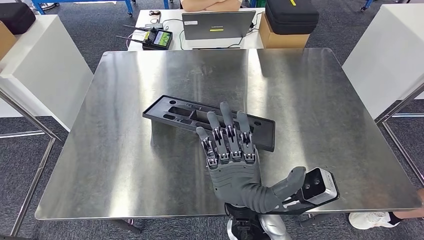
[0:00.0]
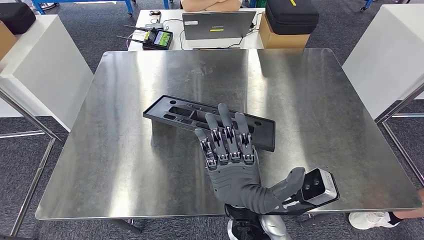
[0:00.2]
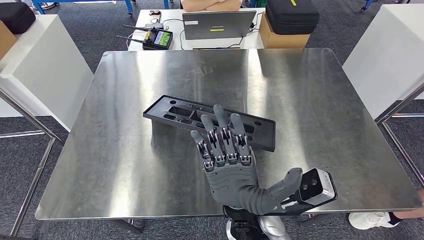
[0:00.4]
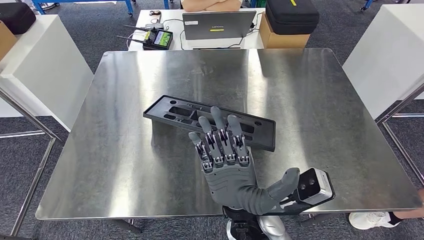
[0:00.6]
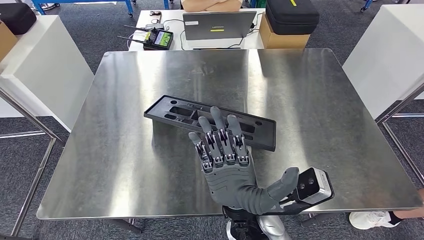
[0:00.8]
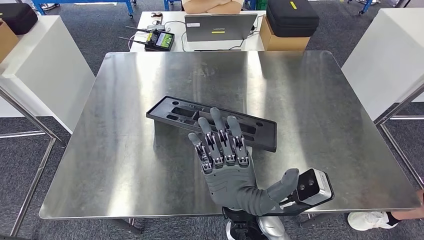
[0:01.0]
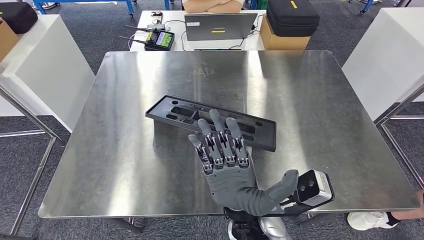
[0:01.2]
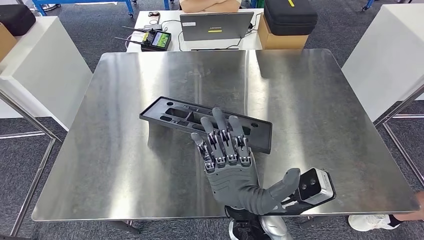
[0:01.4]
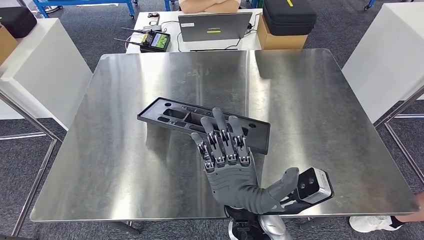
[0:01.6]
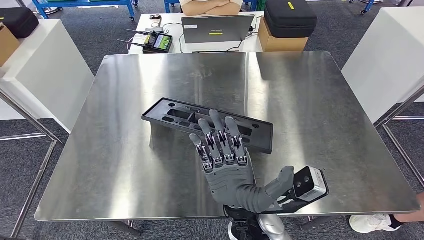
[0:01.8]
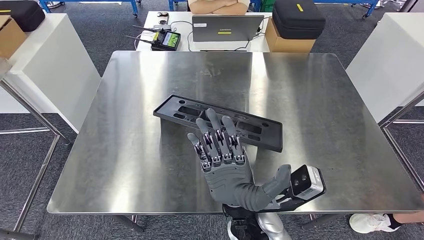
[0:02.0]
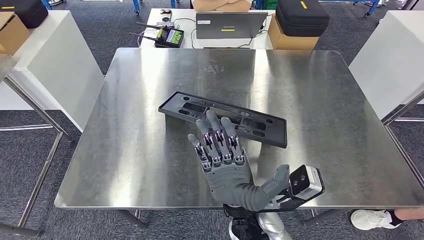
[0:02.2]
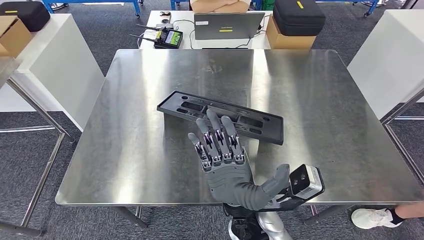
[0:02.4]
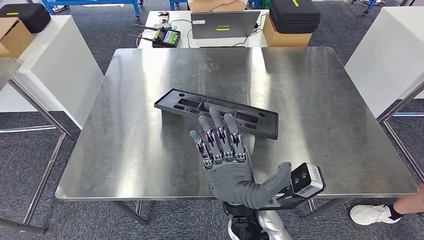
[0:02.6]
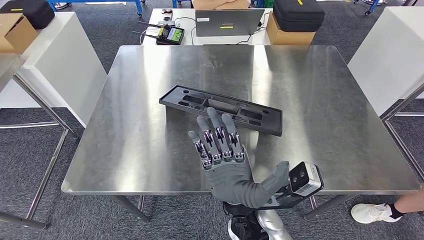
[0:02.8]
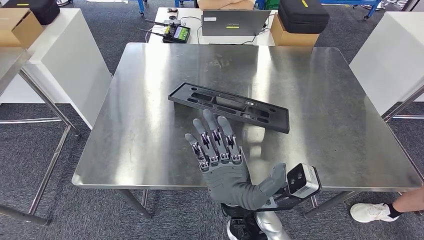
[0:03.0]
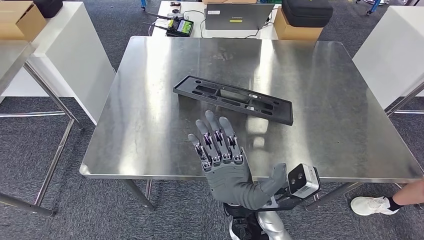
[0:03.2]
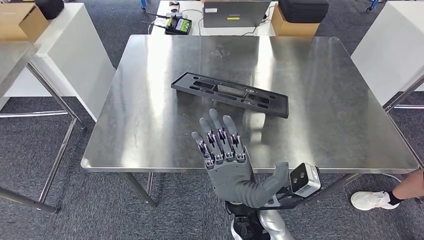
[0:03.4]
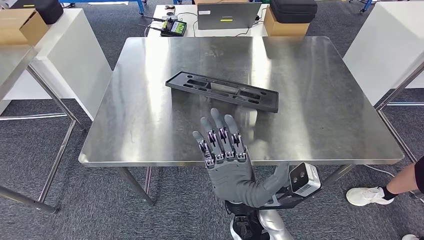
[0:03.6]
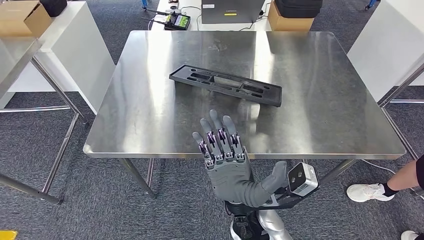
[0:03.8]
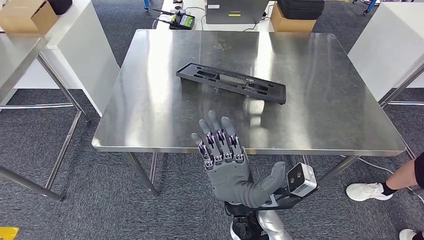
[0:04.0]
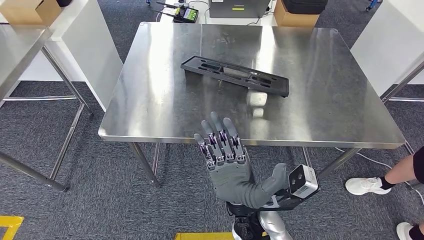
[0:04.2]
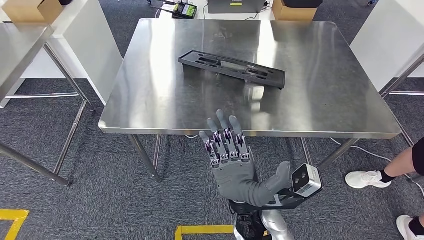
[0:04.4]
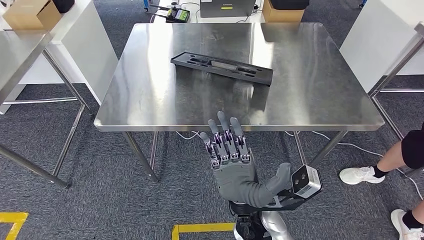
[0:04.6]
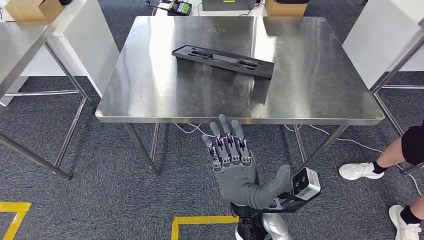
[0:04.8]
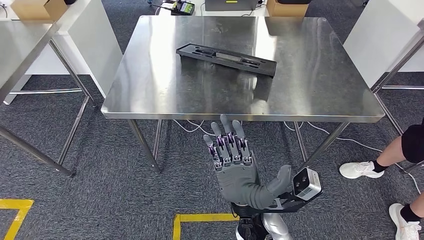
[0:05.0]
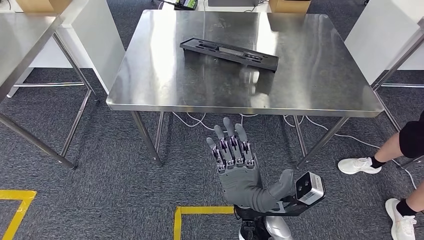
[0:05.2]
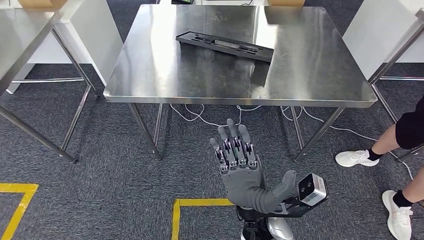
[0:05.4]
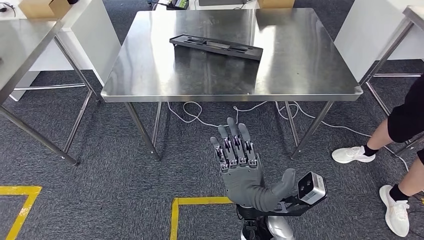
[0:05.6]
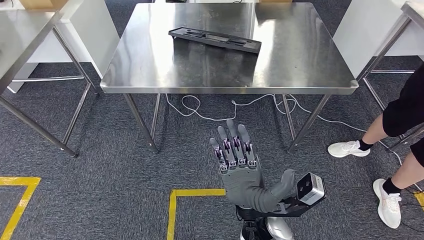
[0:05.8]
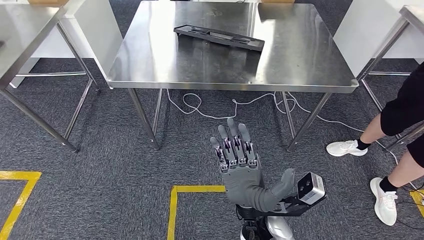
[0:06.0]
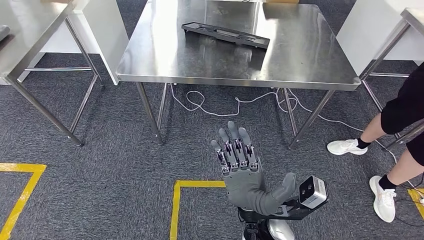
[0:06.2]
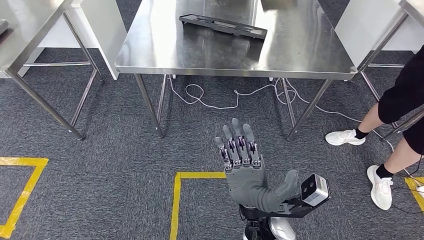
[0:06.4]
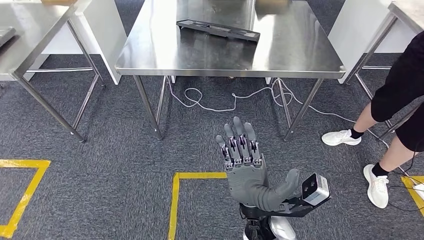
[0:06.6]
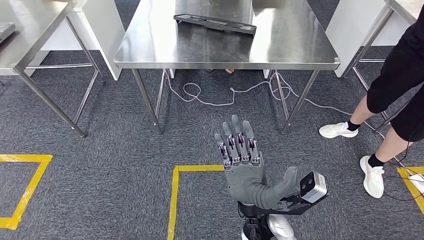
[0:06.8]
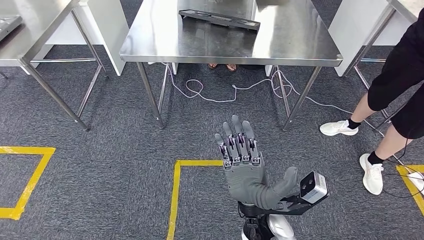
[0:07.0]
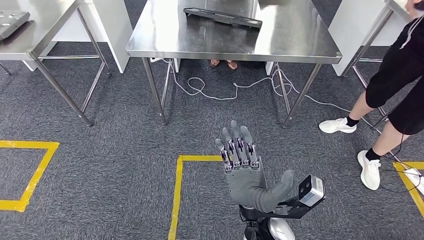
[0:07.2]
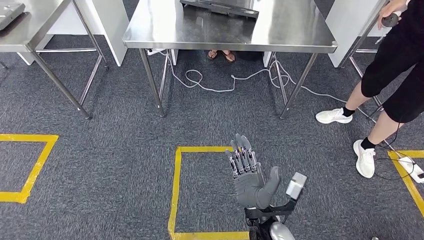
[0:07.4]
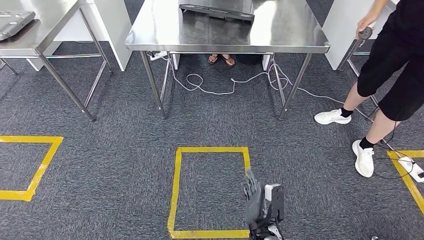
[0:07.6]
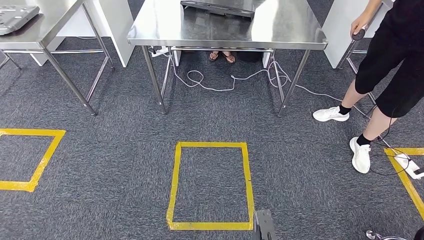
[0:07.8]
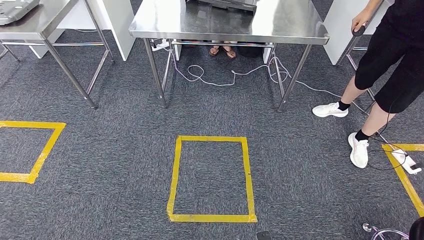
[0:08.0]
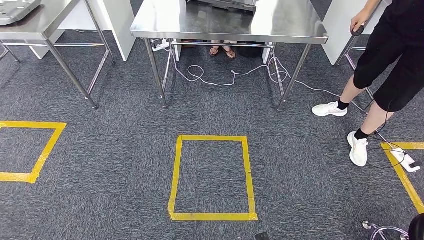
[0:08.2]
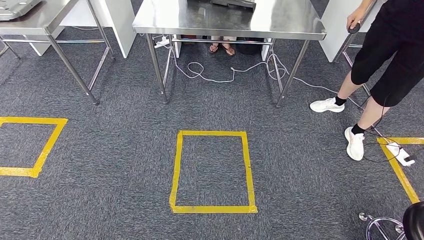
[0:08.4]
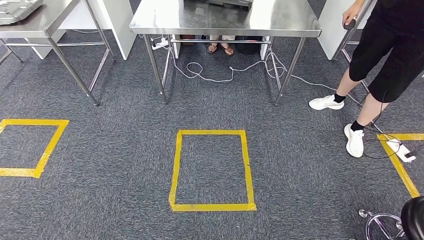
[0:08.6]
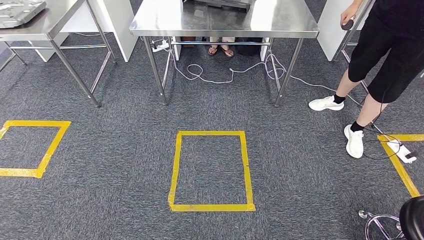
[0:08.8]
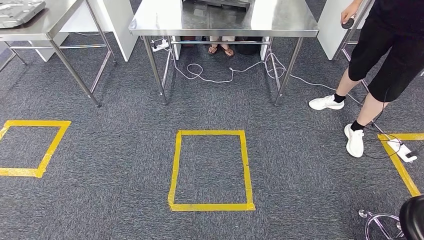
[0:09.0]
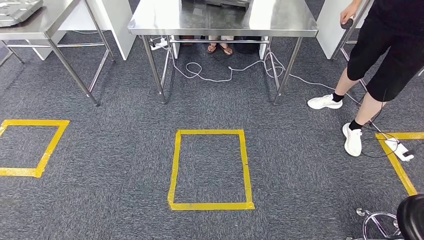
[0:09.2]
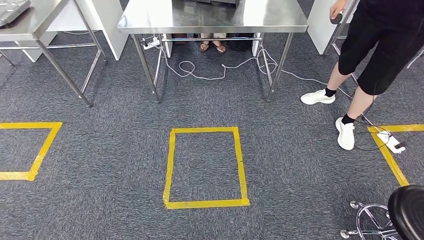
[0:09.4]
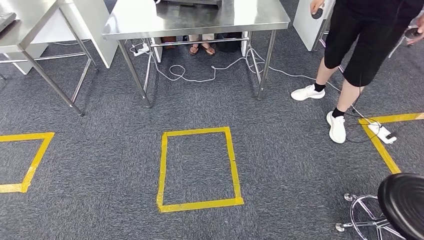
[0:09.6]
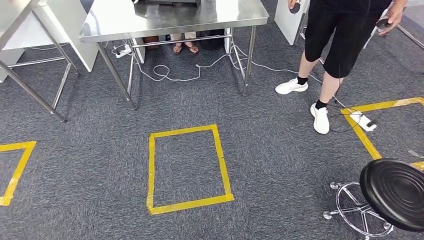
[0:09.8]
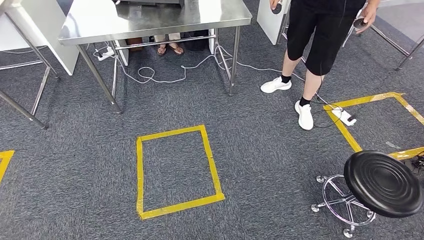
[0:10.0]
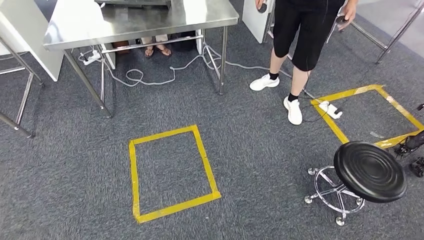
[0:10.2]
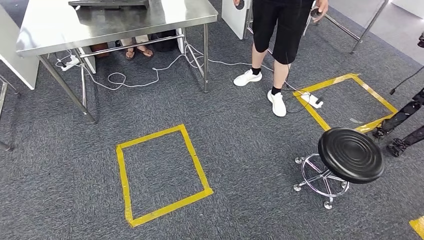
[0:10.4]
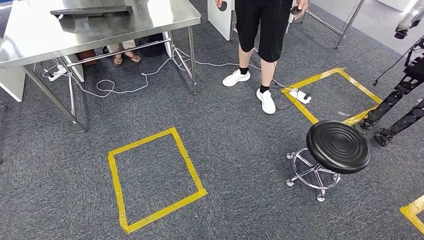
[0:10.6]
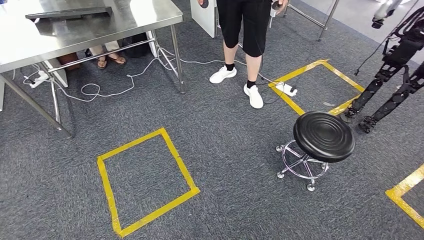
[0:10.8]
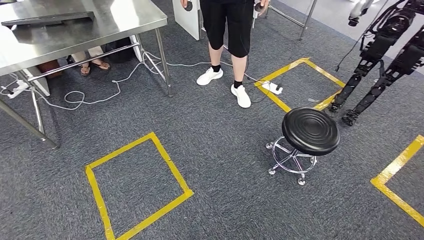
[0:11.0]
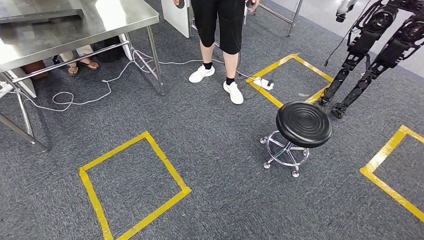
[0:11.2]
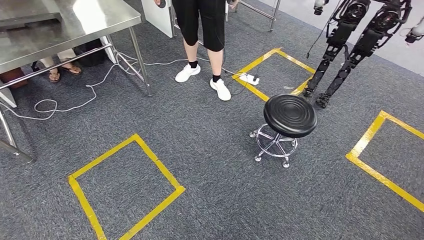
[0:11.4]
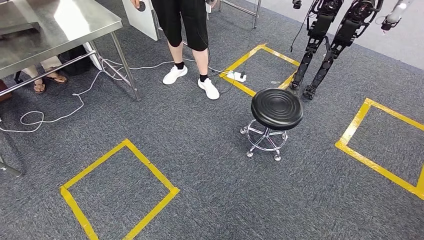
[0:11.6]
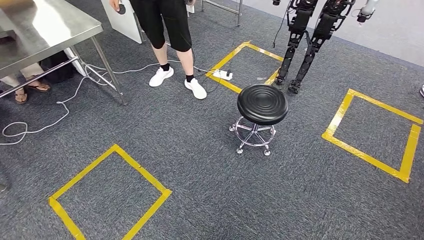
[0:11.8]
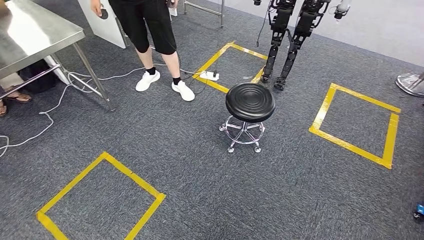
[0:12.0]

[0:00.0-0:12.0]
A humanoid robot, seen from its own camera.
Step, 0:00.0 to 0:07.2: Insert the large material into the corresponding slot on the workbench.
0:00.0 to 0:01.6: Both hands stay about where they are.

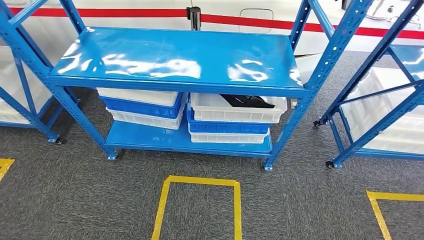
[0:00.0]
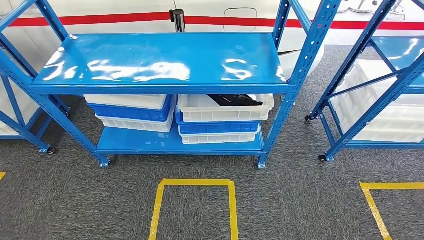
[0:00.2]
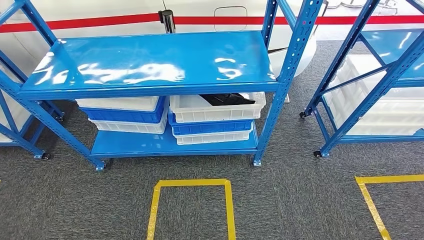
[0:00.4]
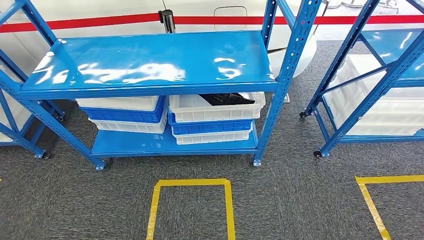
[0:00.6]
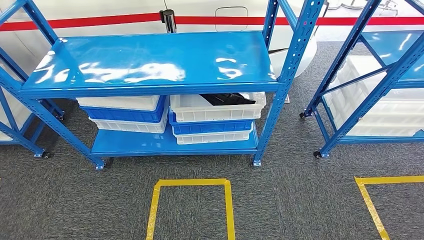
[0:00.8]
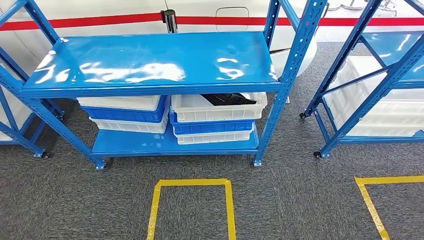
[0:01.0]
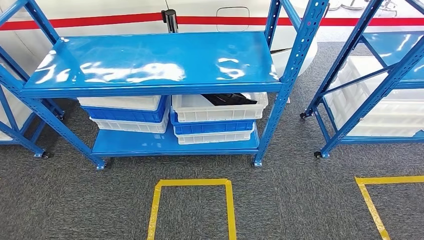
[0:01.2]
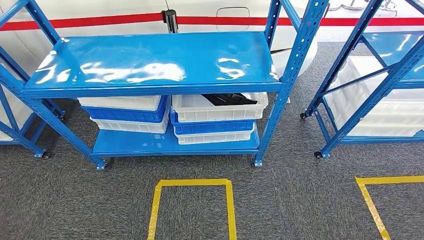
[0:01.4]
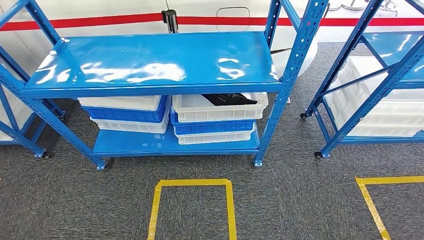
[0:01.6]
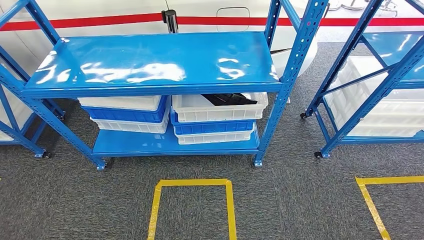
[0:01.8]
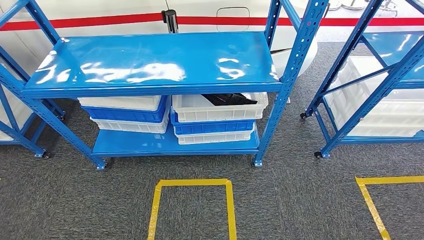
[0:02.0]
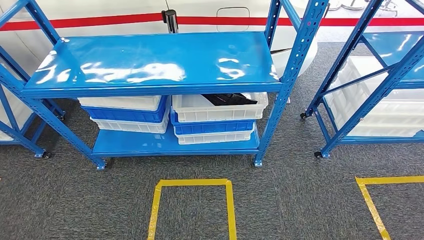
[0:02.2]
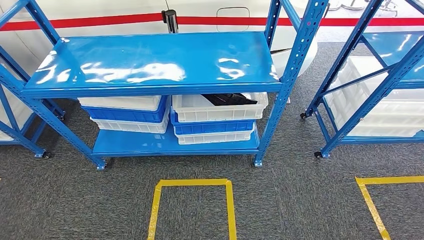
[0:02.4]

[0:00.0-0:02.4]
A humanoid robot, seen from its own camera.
Step, 0:00.0 to 0:02.4: Move to the initial position of the shelf.
